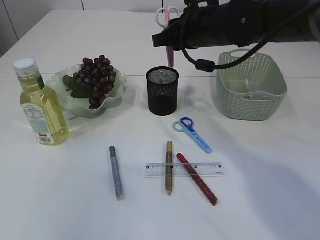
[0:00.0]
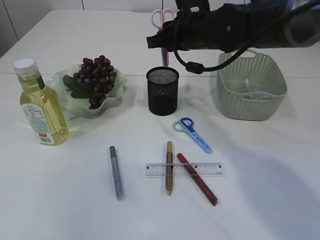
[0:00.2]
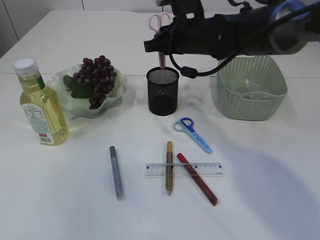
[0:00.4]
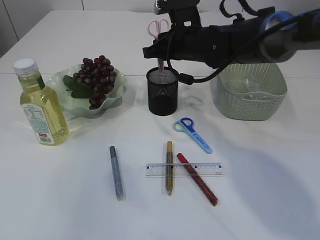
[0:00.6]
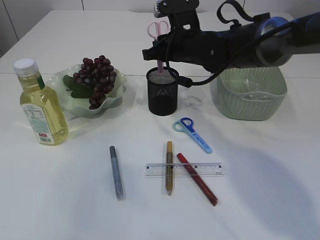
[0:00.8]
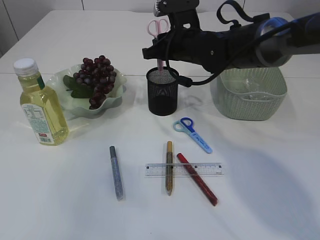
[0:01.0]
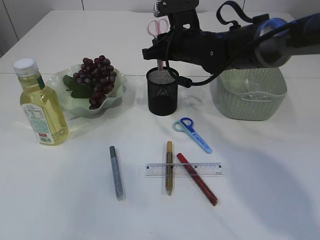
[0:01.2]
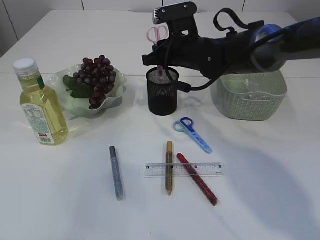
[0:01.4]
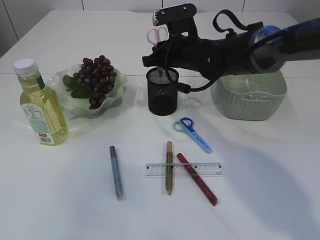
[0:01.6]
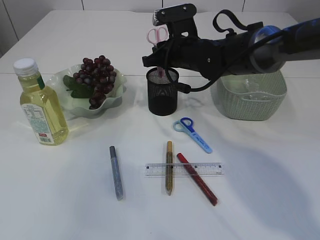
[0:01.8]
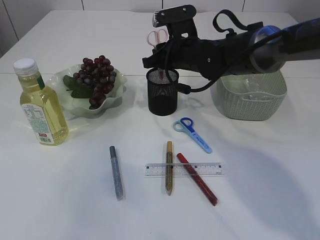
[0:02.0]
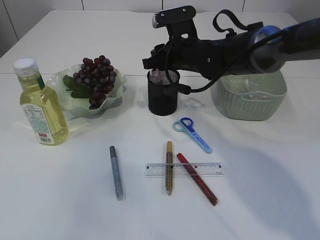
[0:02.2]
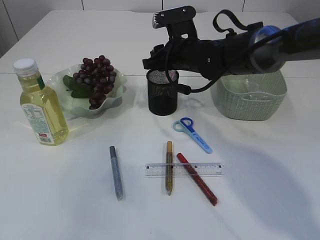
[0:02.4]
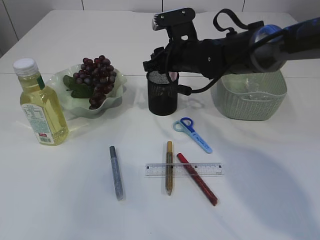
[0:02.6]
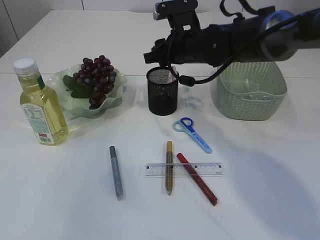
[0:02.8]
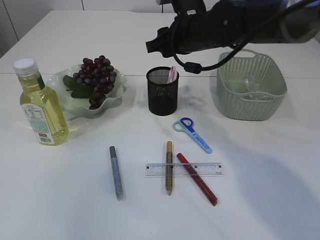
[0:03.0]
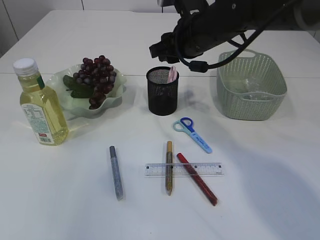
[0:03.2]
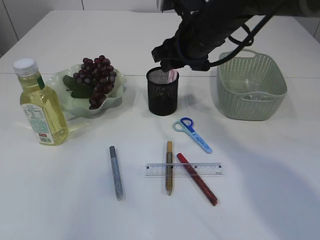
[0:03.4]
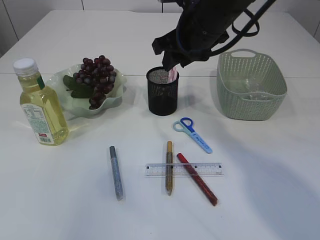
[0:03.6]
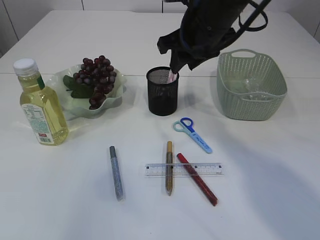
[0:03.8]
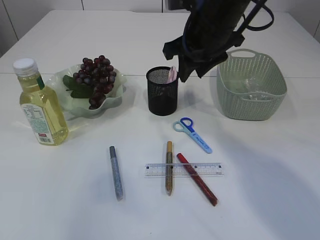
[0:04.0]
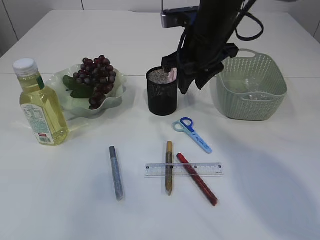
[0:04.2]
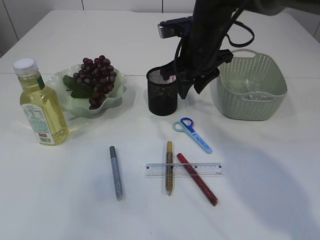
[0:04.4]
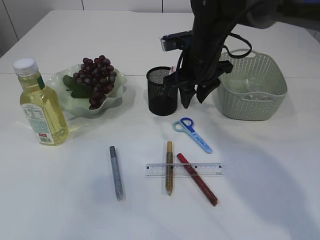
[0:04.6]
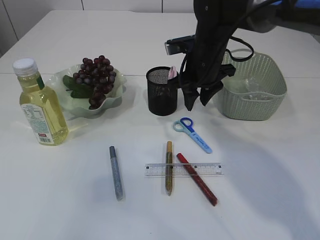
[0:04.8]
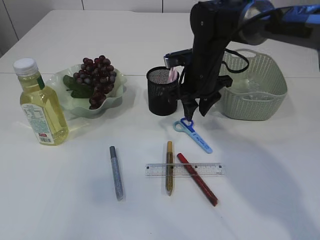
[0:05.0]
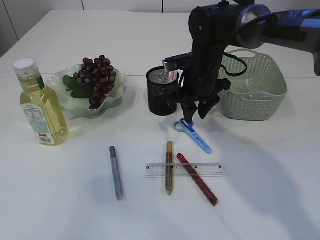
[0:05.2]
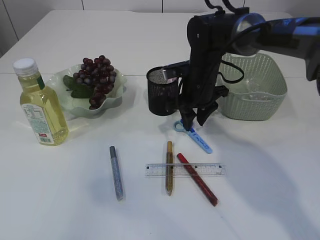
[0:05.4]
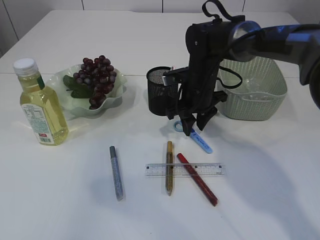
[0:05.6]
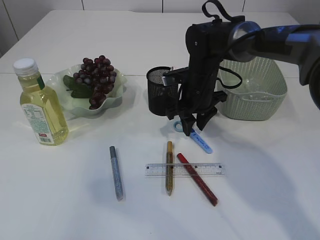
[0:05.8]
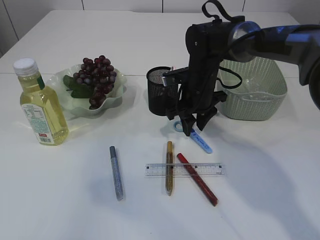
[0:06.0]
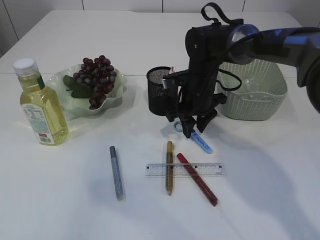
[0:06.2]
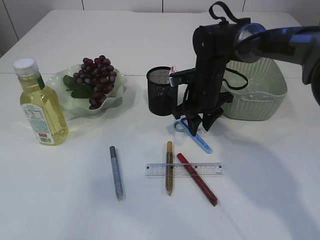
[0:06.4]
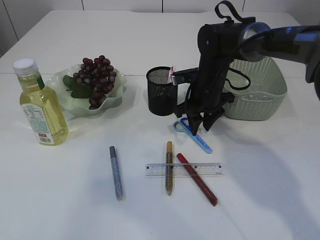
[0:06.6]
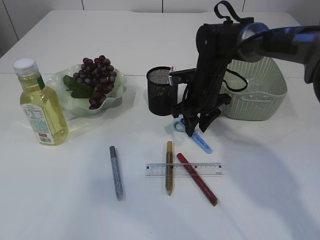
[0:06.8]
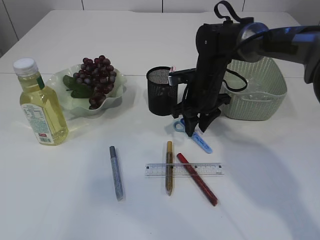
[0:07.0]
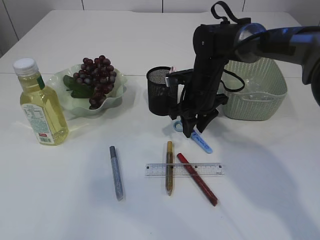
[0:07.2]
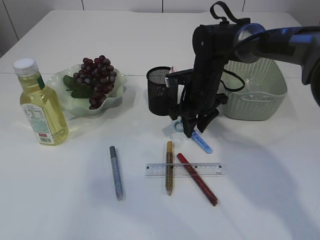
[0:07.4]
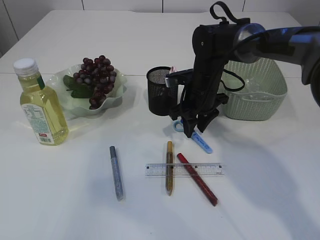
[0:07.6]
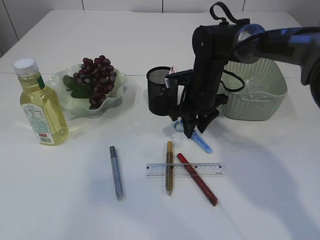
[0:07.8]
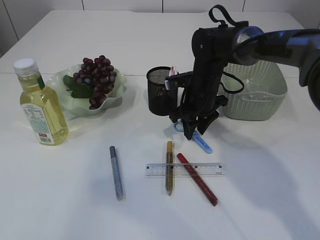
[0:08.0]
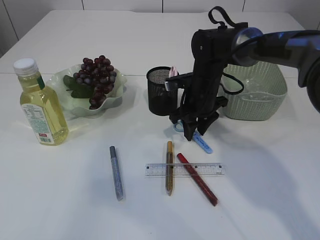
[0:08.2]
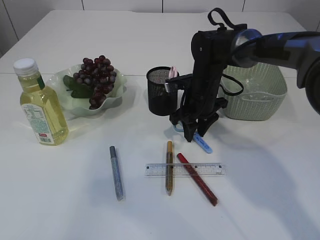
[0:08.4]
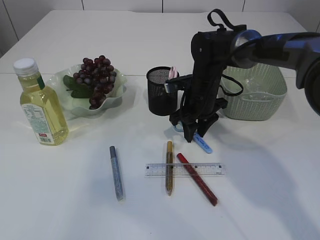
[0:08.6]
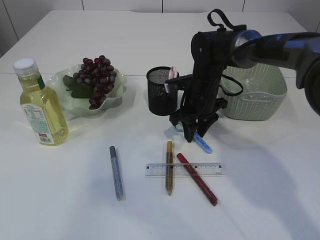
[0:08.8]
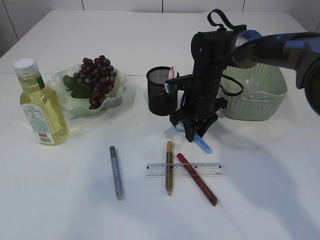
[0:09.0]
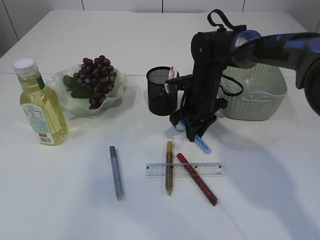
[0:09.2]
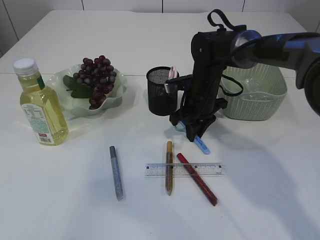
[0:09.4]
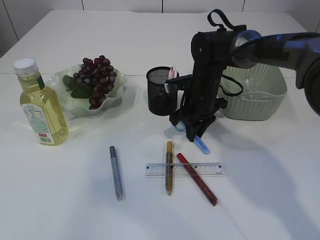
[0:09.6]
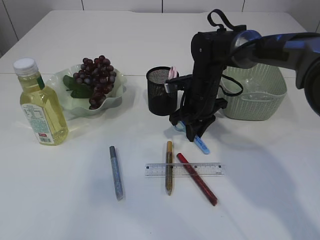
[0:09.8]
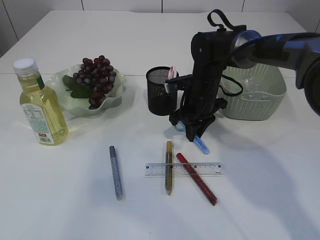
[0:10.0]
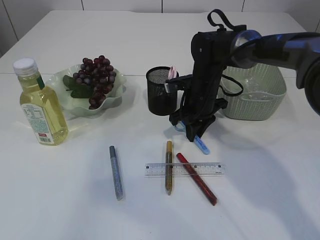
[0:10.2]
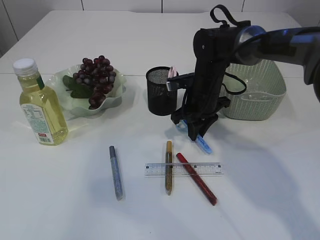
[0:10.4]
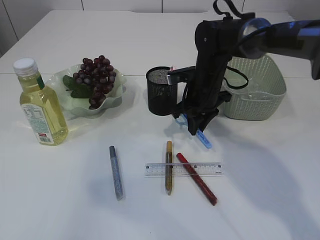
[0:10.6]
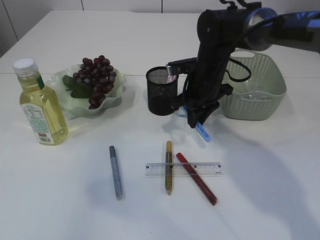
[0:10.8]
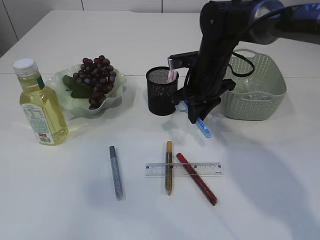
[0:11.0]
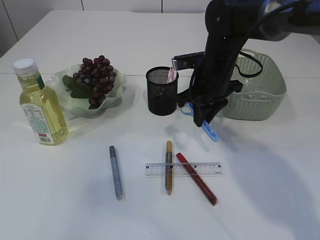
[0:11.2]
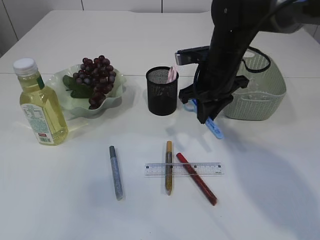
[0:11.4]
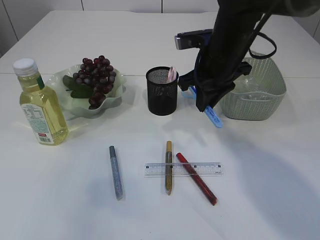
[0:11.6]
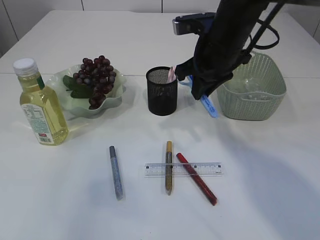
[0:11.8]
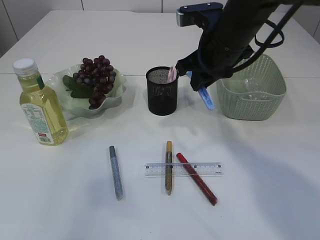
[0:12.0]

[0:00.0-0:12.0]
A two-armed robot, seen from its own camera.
Step, 0:00.0 to 0:04.0: Place the pink scissors into the pen holder.
Step, 0:04.2 to 0:11.4: pick up the blue scissors.
0:00.0 to 0:01.6: The right gripper moves downward, some 5 cm.
0:01.6 to 0:03.0: The right gripper shifts by about 5 cm.
0:04.4 to 0:06.0: The right gripper goes about 10 cm downward.
0:06.0 to 0:07.6: The grippers stay close to where they were, moving slightly.
0:07.6 to 0:09.0: Neither gripper changes place.
0:09.0 to 0:10.4: Both grippers stay put.
0:10.4 to 0:12.0: The right gripper moves upward and backward, about 15 cm.

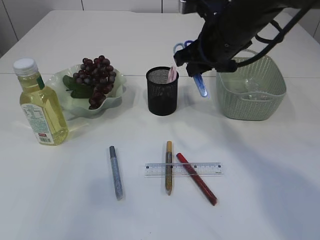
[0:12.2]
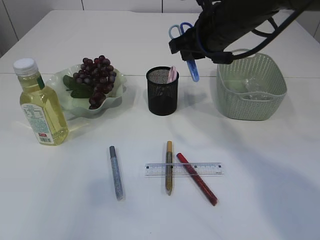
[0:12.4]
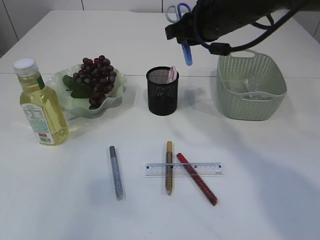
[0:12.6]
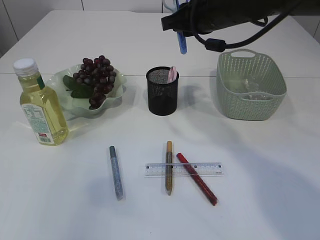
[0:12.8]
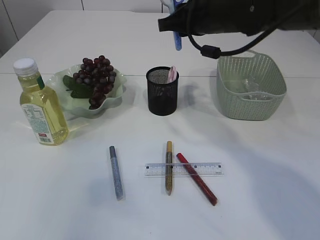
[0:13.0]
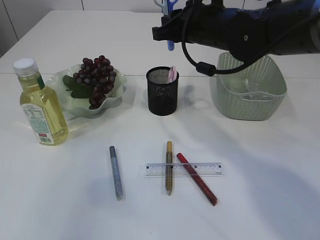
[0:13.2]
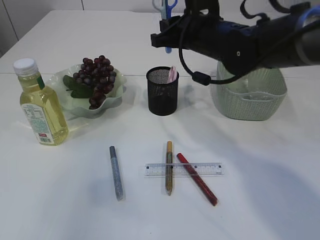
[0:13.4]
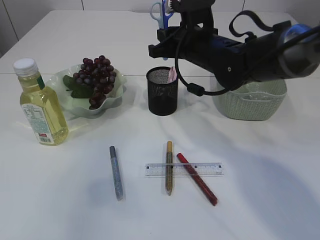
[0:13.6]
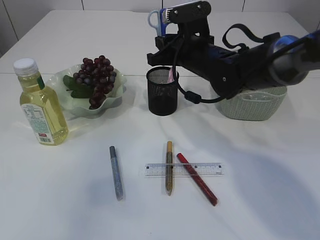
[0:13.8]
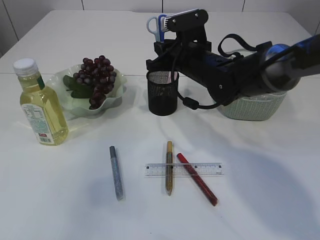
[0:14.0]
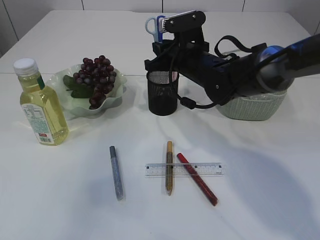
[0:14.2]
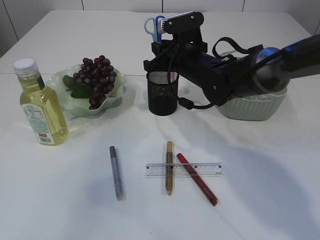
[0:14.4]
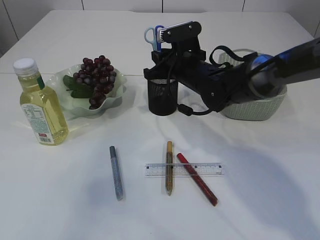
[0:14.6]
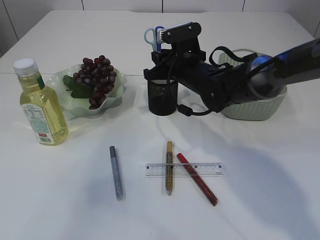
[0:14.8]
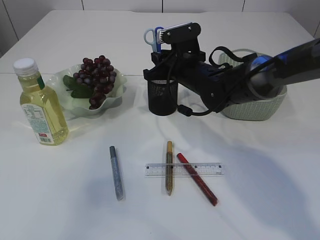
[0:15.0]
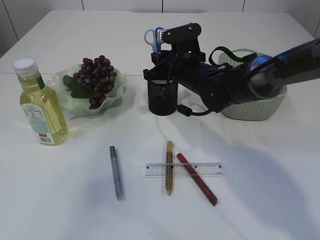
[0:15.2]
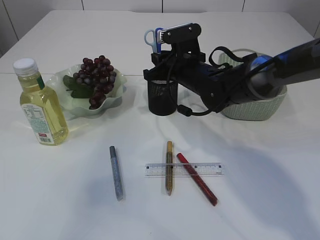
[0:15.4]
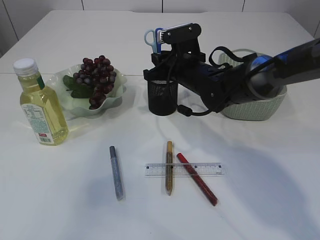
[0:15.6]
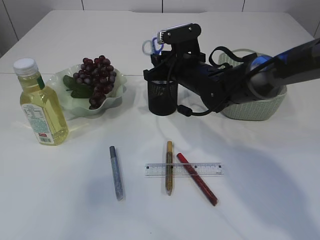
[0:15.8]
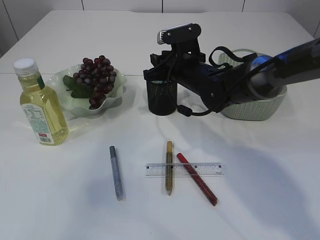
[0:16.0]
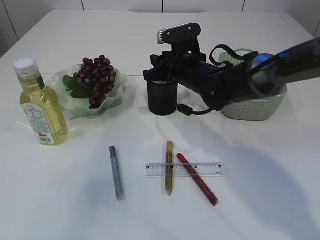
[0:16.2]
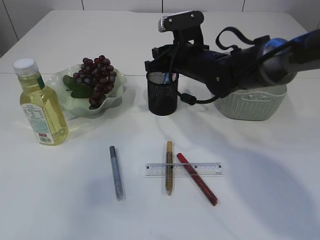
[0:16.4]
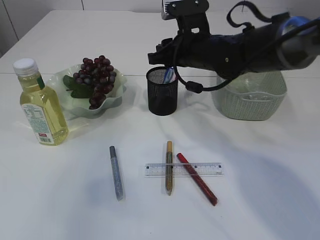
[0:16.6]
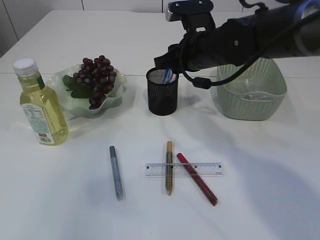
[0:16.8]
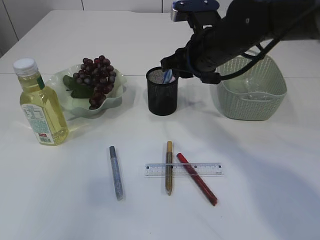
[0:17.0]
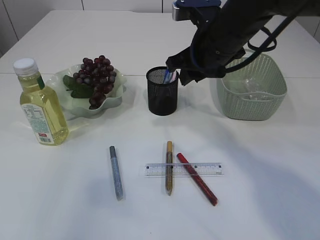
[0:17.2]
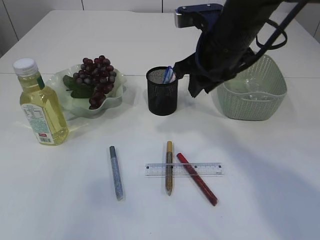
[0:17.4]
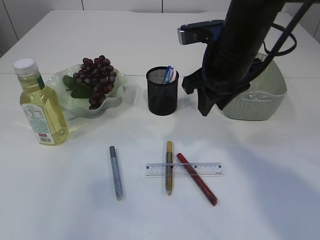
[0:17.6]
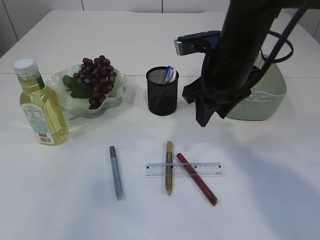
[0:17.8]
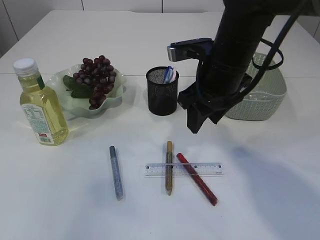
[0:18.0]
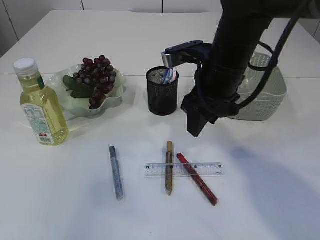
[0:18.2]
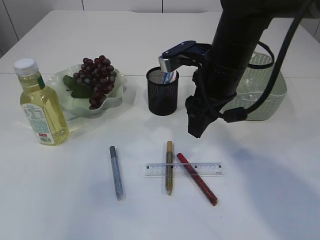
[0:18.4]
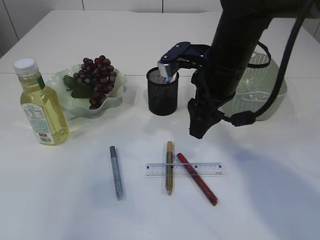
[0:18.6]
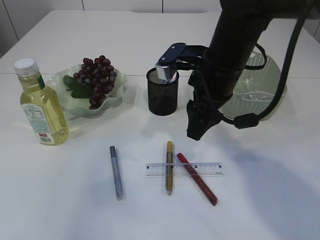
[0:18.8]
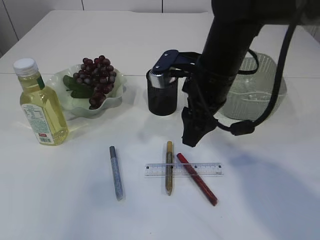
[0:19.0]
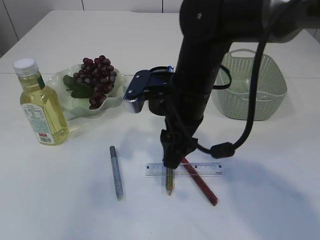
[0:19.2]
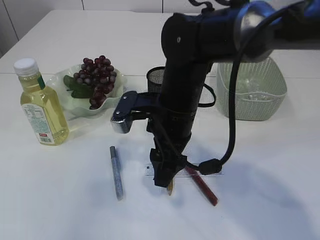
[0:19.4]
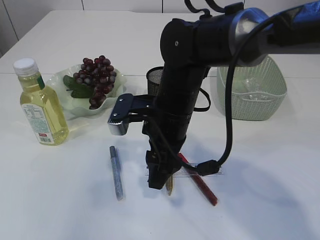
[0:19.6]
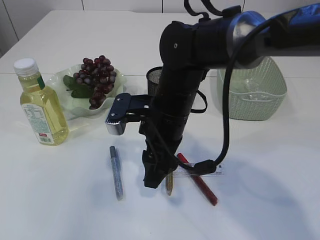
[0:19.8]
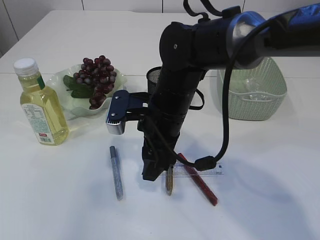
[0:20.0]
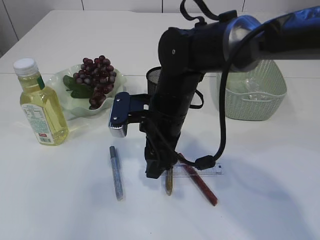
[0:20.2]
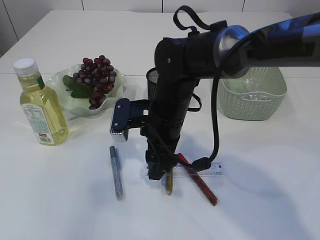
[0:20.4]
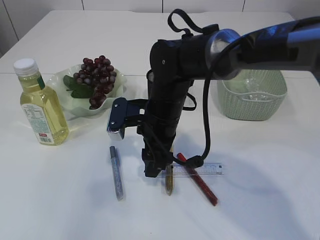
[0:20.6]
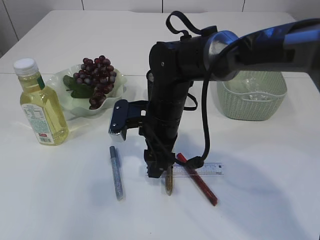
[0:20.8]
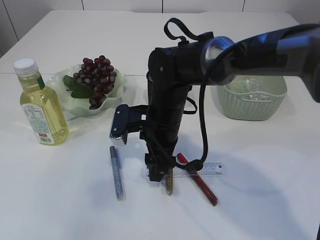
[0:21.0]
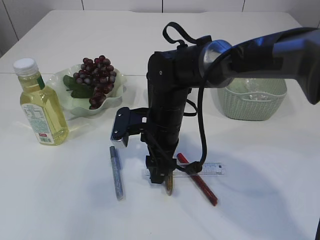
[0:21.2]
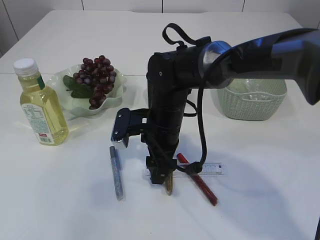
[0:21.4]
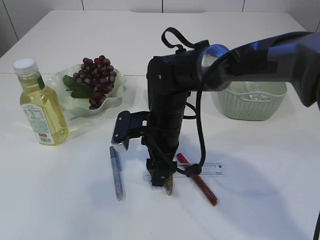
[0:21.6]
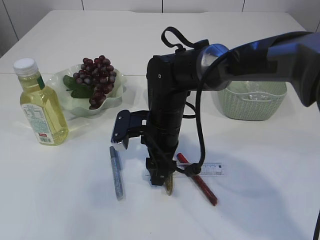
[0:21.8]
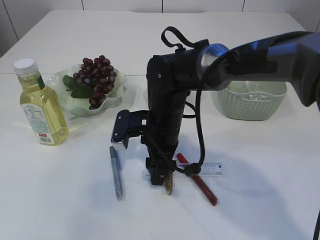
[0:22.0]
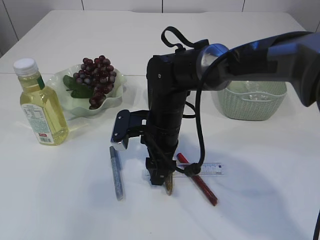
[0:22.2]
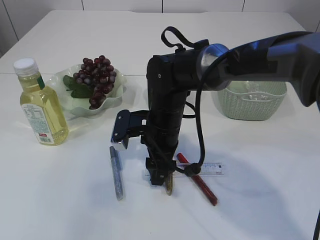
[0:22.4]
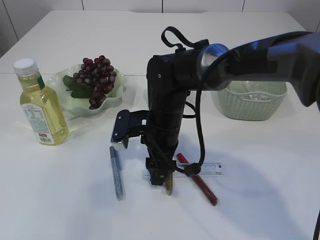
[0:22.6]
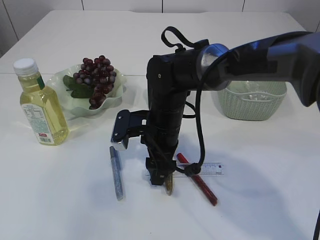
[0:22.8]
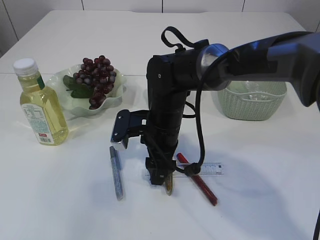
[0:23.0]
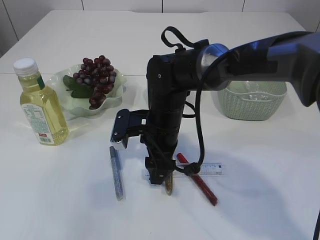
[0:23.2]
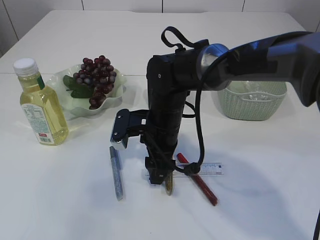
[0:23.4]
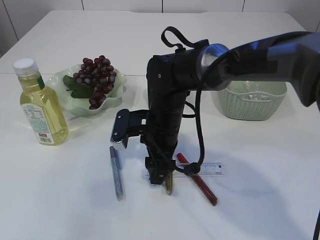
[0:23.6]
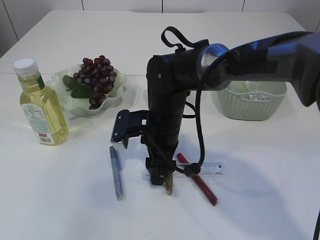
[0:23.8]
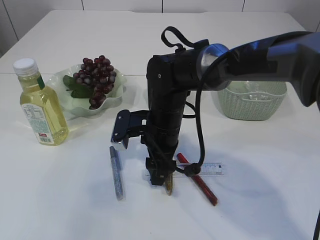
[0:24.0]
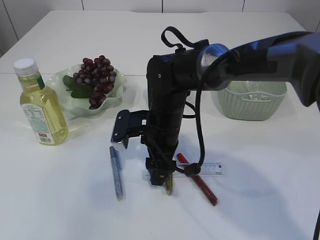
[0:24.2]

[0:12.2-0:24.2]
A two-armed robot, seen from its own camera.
Step, 0:12.2 to 0:17.0: Place the blue scissors into the pen holder.
0:12.2 to 0:13.8: The right gripper shifts some 5 cm downward.
0:13.8 to 0:15.2: The grippers move only a little.
0:15.2 to 0:16.6: The right gripper travels upward by roughly 5 cm.
0:16.6 to 0:18.2: The right gripper travels backward by some 10 cm, and opens its fingers.
0:18.2 to 0:19.8: The right gripper is displaced to the left and downward by approximately 10 cm.
0:19.8 to 0:21.2: The right gripper shifts by roughly 5 cm.
0:21.2 to 0:24.2: Neither gripper changes place.
